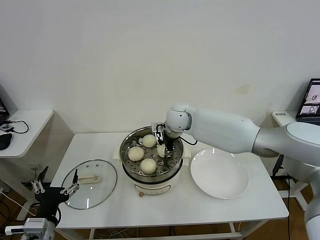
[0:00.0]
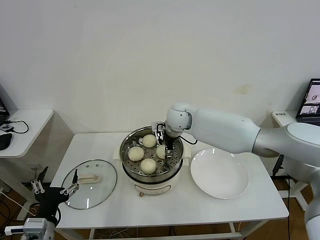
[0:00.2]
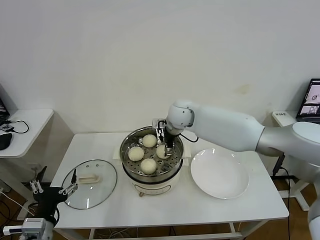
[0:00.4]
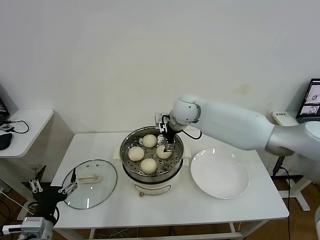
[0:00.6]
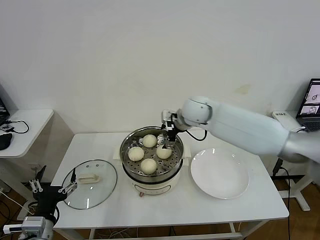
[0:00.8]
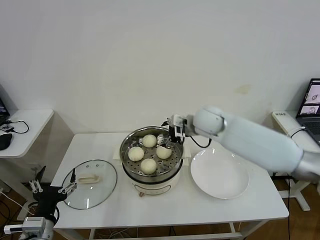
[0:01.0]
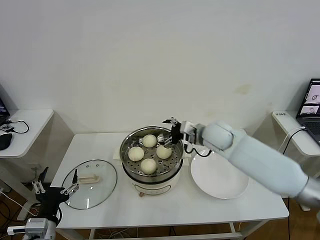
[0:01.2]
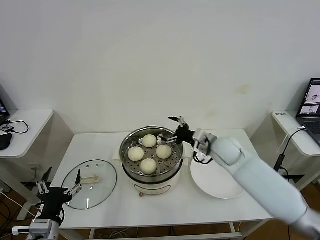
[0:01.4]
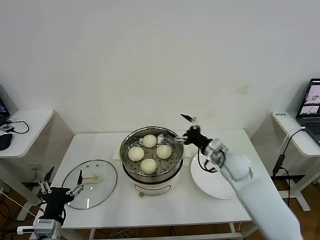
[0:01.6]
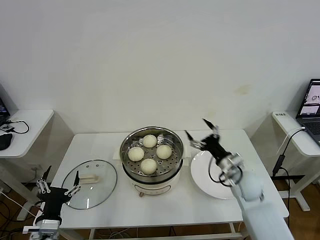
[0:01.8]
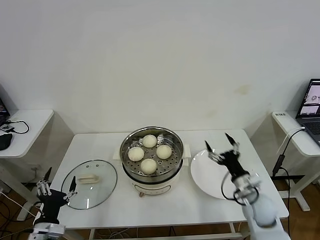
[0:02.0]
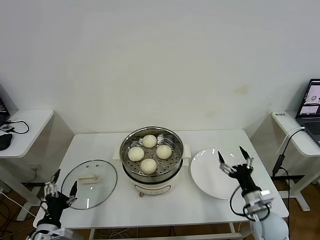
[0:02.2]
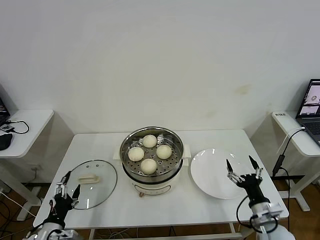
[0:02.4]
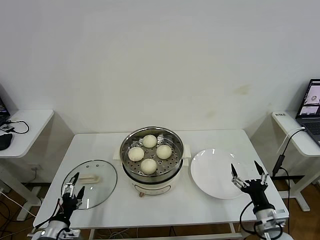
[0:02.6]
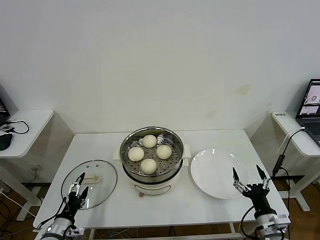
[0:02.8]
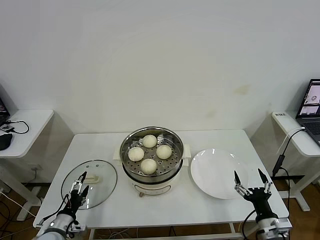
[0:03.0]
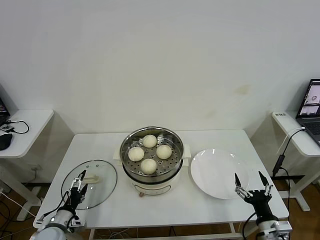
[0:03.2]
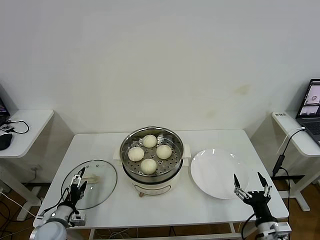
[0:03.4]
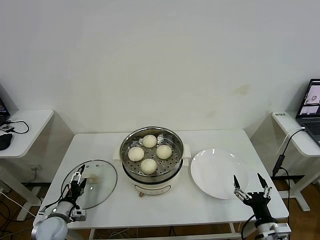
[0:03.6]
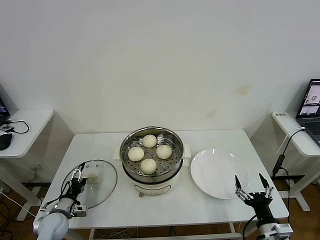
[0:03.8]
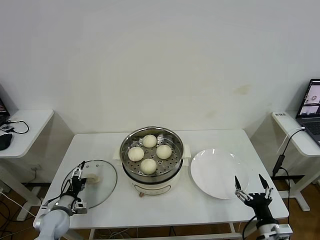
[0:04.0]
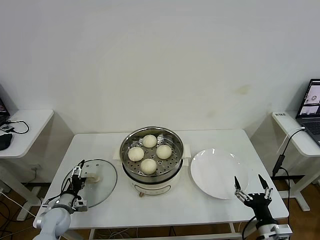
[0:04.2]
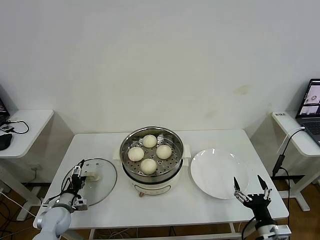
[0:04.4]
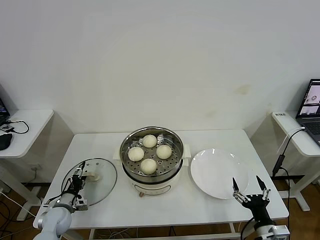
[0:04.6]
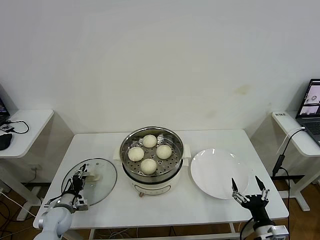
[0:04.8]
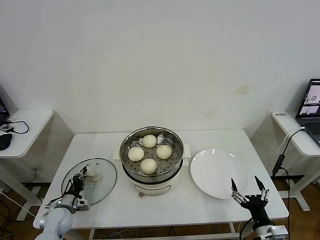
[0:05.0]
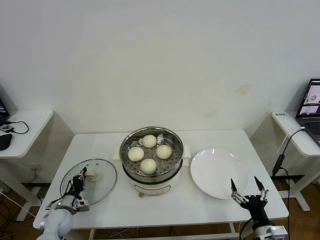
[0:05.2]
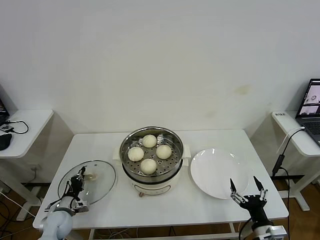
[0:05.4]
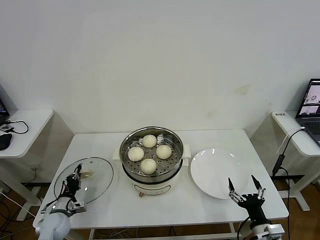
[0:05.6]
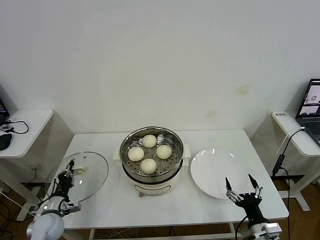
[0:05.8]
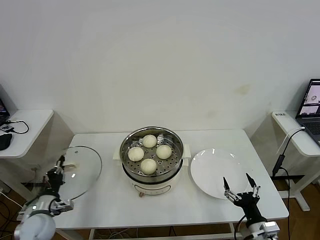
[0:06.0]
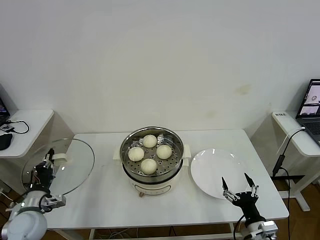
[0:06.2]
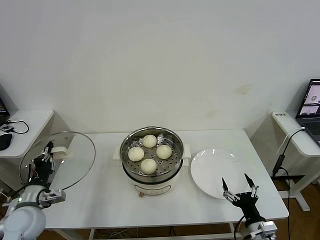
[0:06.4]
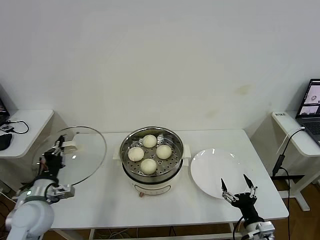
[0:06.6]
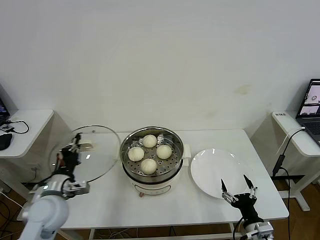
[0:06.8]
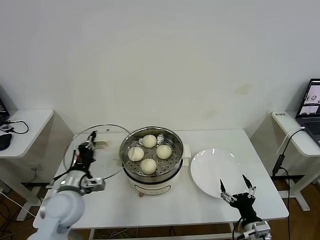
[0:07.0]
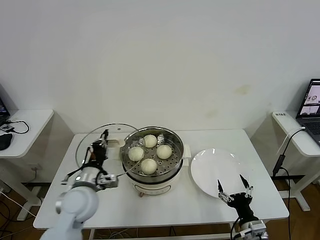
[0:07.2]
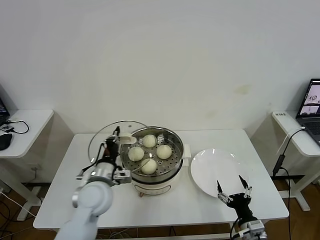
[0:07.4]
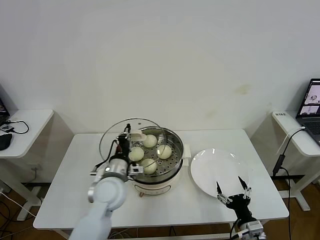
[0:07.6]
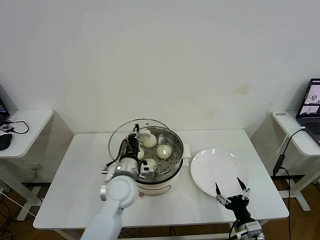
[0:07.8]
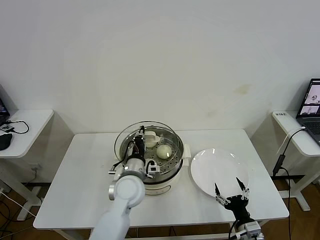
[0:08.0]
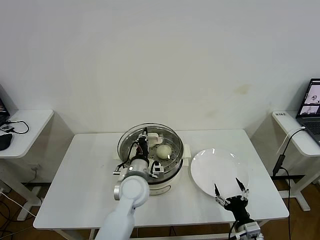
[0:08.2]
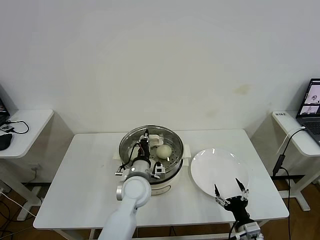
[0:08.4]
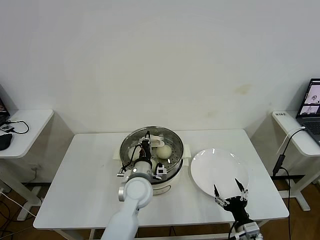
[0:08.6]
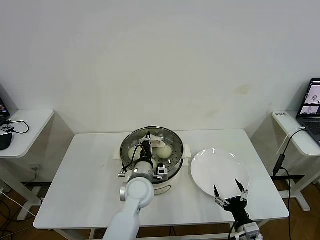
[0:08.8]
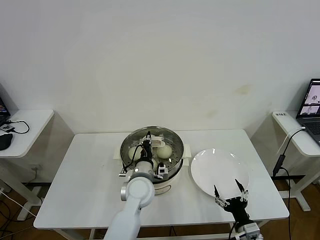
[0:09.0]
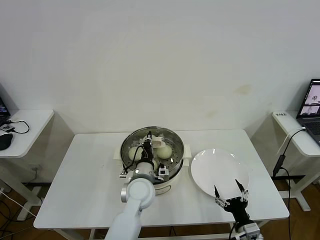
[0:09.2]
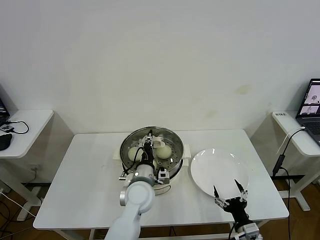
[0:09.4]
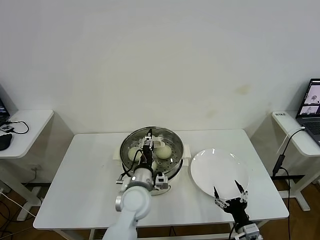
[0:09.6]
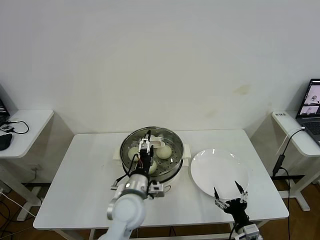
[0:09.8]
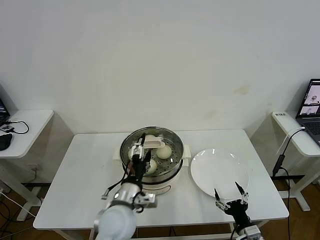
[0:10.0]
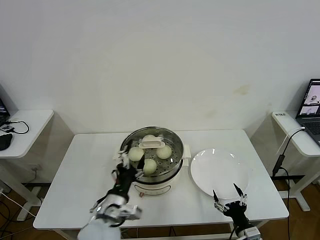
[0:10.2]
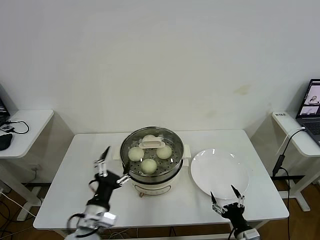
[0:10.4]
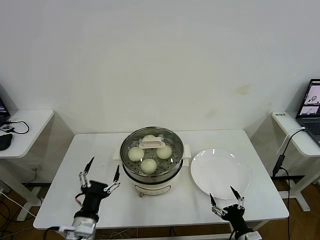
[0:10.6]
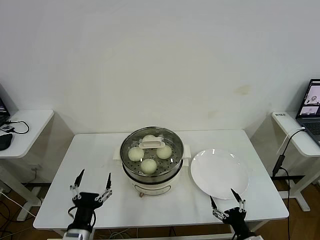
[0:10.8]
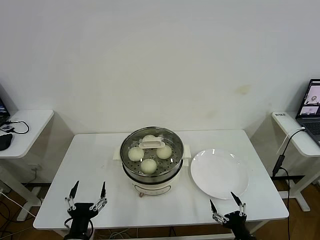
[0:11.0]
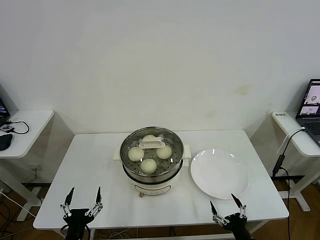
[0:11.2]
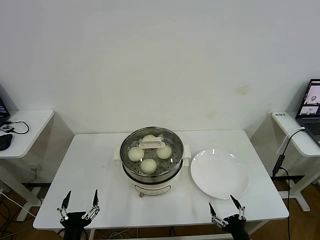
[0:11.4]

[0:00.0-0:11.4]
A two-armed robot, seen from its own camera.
Task of the whole recording: take steamed baozi put them in steamer then cover it.
Step, 0:00.6 to 0:05.2: Grasp the pot lid with left gripper.
Step, 0:05.4 to 0:09.8: Place the pot lid on the steamer with left gripper.
0:00.0 to 0:01.4: The right gripper shifts about 20 cm to the right, backward and downward, and opens its fingers.
0:01.4 to 0:02.8: The right gripper goes roughly 30 cm backward, downward and to the right, while the left gripper goes approximately 15 cm downward and to the left.
0:02.8 to 0:04.2: The left gripper shifts approximately 10 cm forward.
0:04.2 to 0:05.6: The left gripper closes.
0:05.6 to 0:07.2: The left gripper heads upward and to the right, covering about 25 cm.
0:07.2 to 0:08.6: The left gripper shifts roughly 15 cm to the right.
0:08.6 to 0:10.0: The left gripper heads backward, covering approximately 10 cm, and opens.
0:10.0 to 0:11.4: The left gripper goes roughly 25 cm backward, to the left and downward; the right gripper shifts about 5 cm backward.
